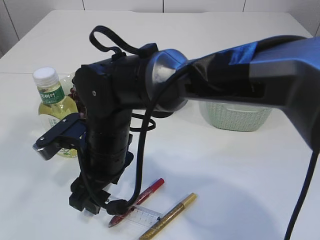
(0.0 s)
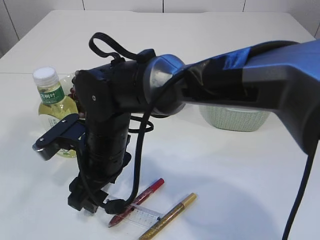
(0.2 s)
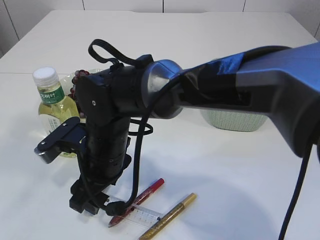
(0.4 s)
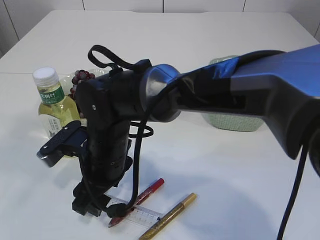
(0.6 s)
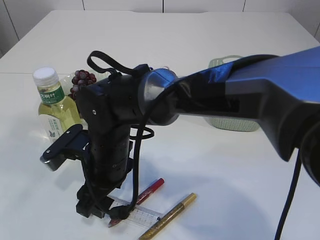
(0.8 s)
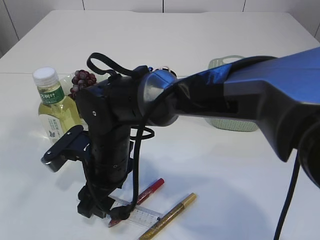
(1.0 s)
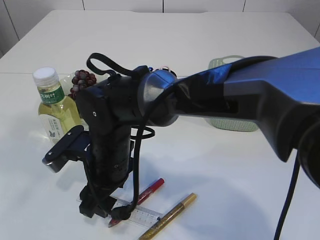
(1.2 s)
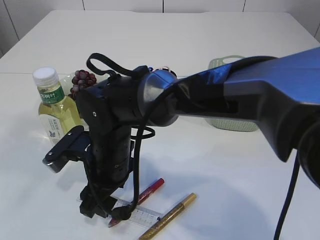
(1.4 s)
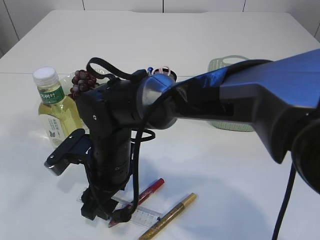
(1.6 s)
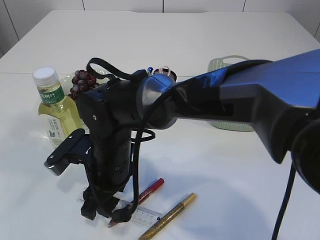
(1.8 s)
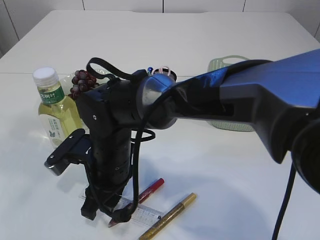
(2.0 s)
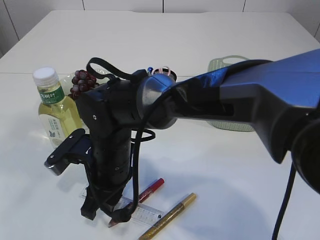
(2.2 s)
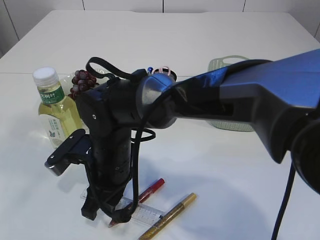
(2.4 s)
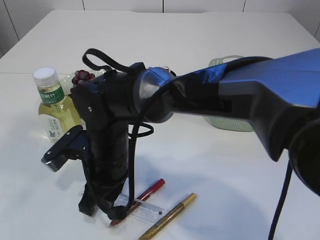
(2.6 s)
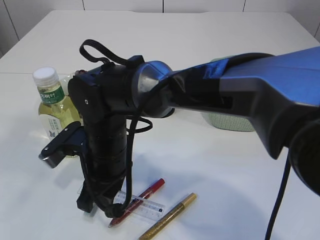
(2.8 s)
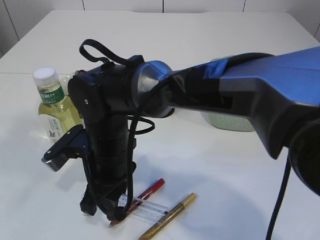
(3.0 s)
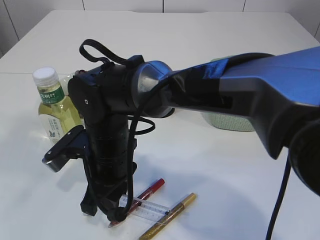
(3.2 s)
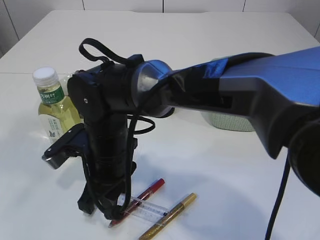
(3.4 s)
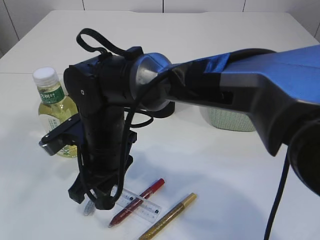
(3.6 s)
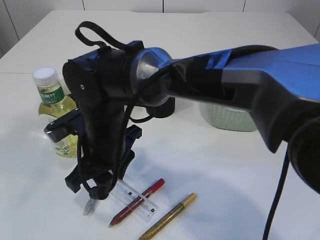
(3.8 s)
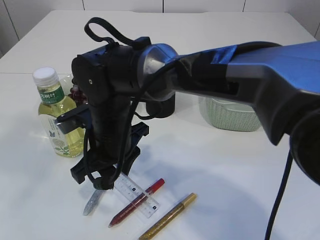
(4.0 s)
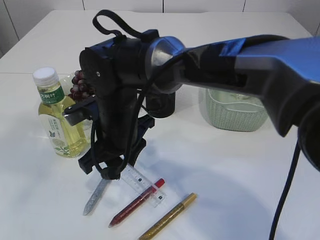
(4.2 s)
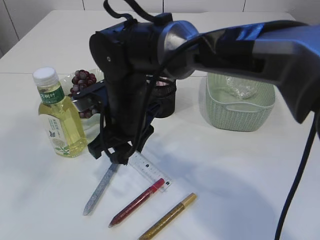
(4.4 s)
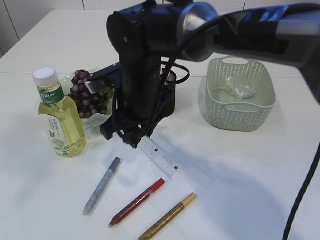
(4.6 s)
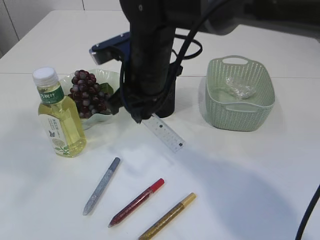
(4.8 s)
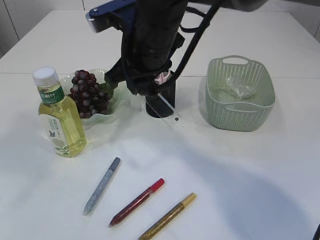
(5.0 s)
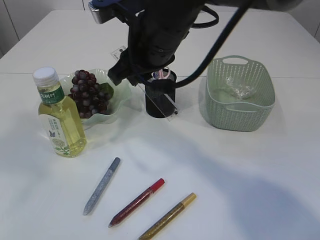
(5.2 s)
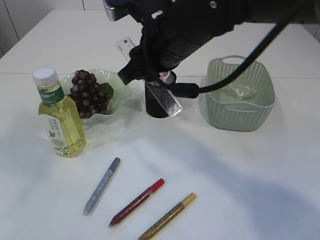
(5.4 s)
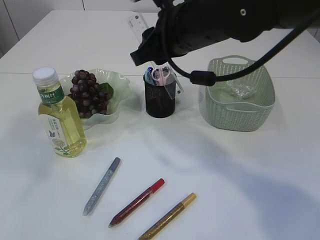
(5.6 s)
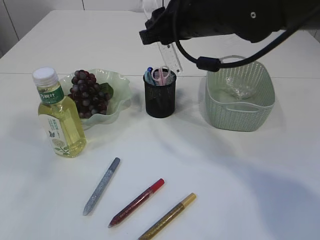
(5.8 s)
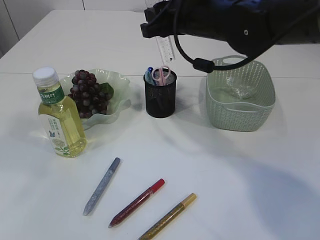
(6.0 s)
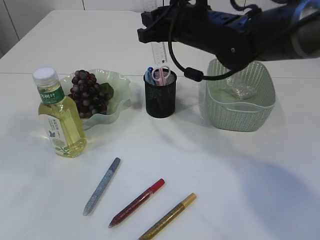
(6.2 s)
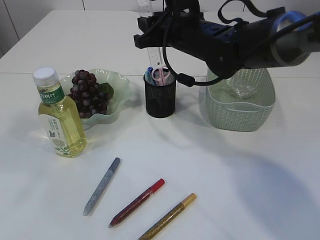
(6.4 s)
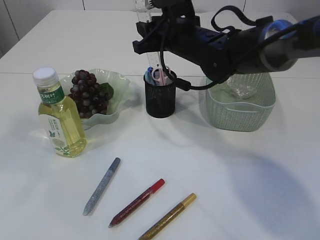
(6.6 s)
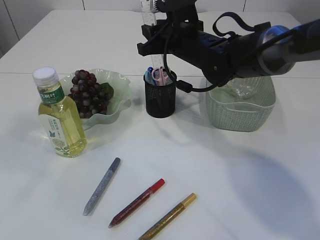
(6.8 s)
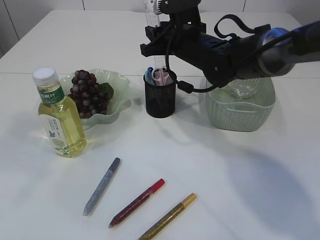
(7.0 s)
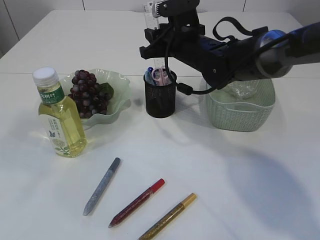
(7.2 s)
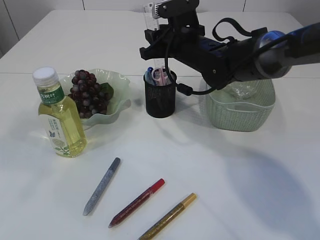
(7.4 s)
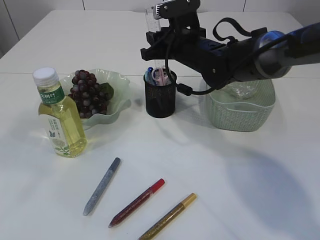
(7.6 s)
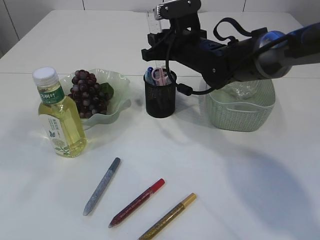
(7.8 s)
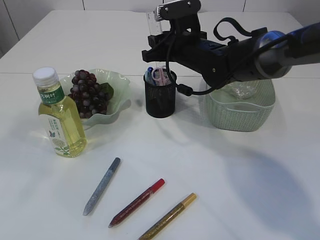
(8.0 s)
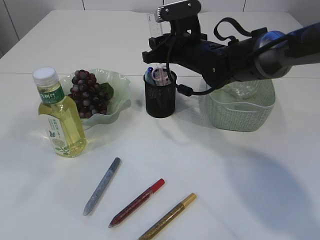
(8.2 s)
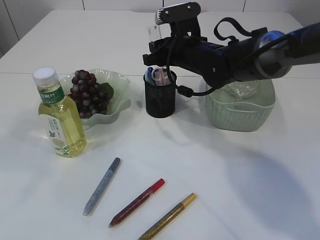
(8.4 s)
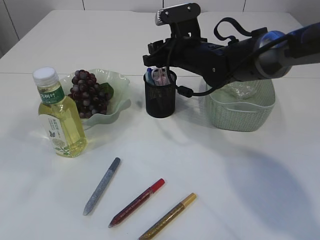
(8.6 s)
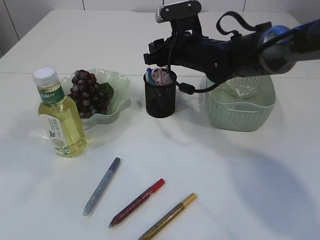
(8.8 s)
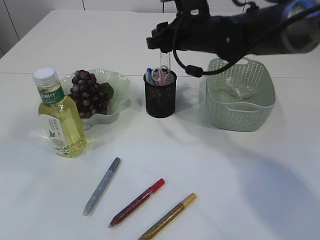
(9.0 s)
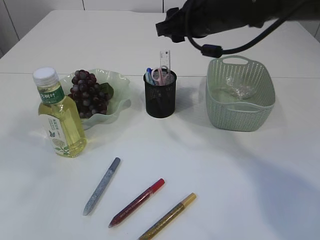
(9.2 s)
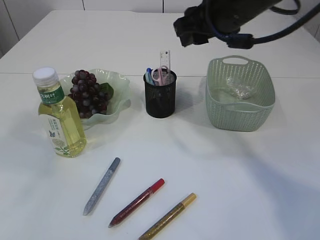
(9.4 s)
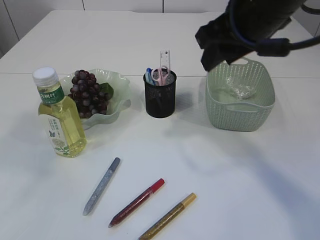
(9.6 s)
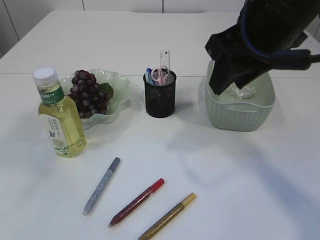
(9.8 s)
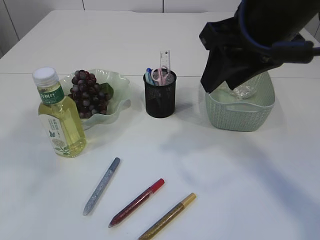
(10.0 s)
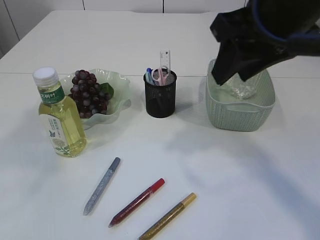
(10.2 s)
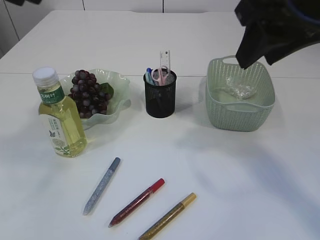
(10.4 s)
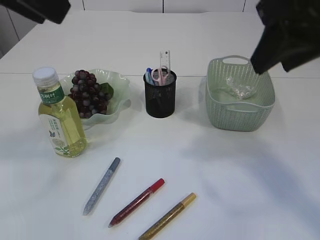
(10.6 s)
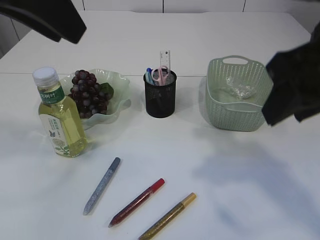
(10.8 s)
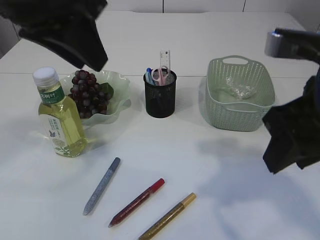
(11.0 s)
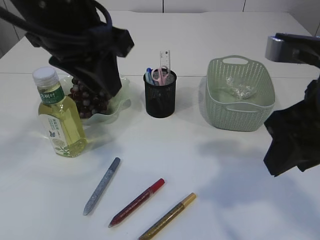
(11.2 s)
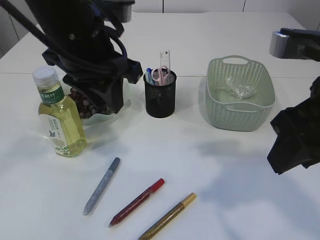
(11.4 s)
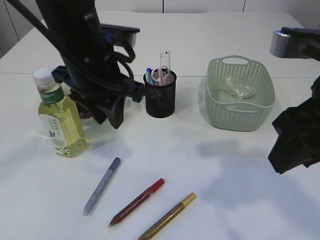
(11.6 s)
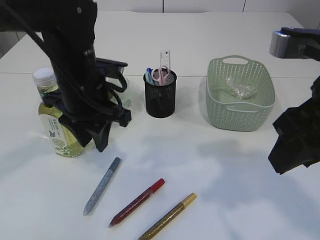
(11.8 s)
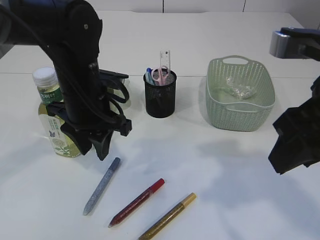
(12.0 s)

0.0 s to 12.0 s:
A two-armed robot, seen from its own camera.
Step, 0.0 to 4.6 s: pick up the ruler.
Step, 4.8 to 9.0 s: Place the ruler into the pen holder.
1.6 to 3.0 s: The right gripper closes its fingers.
3.0 to 4.4 s: The right gripper ends up approximately 5 cm from where it was.
4.4 to 6.0 s: The right gripper heads to the right, upward and forward, covering roughly 15 cm.
6.0 to 7.6 s: The right gripper shifts about 10 cm downward and forward.
7.6 to 9.0 s: The grippers stay close to where they were, moving slightly.
9.0 to 10.4 s: The right gripper moves backward, upward and to the right, approximately 25 cm.
10.4 to 12.0 s: The right gripper travels downward and backward by some 10 cm. The left gripper heads downward and forward, covering roughly 30 cm.

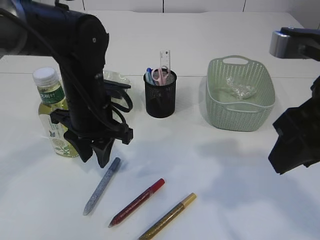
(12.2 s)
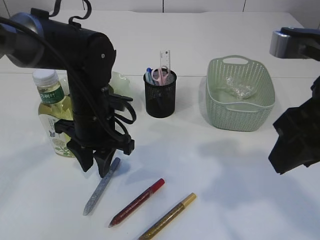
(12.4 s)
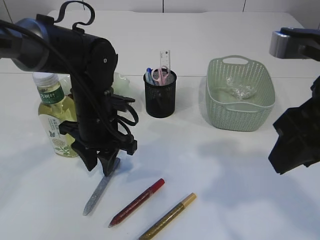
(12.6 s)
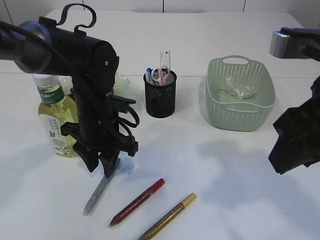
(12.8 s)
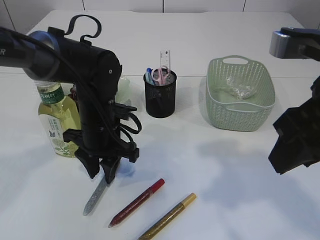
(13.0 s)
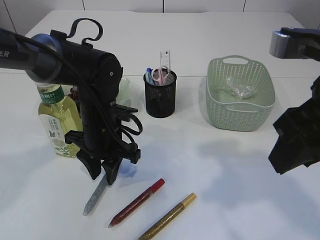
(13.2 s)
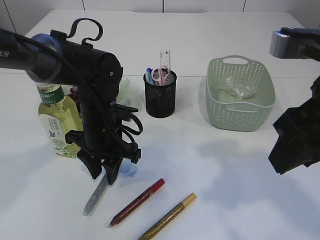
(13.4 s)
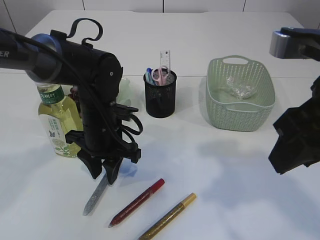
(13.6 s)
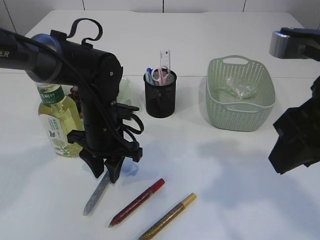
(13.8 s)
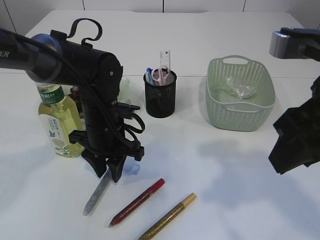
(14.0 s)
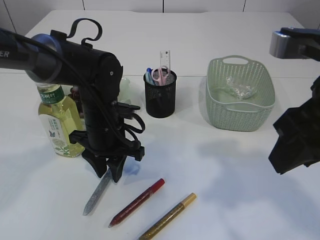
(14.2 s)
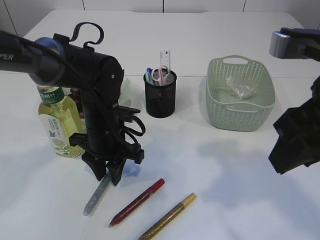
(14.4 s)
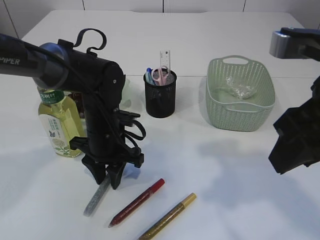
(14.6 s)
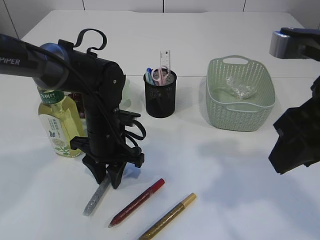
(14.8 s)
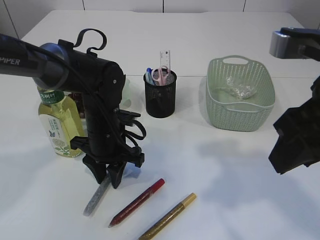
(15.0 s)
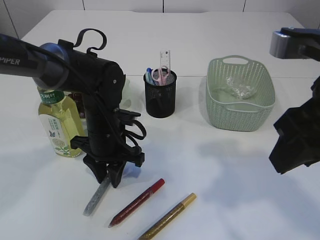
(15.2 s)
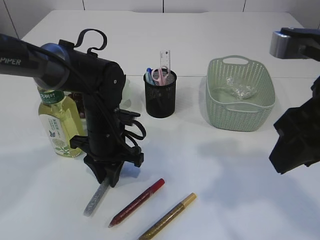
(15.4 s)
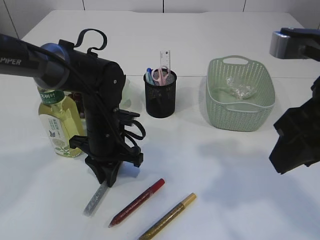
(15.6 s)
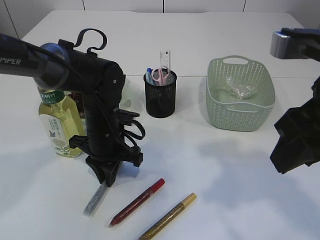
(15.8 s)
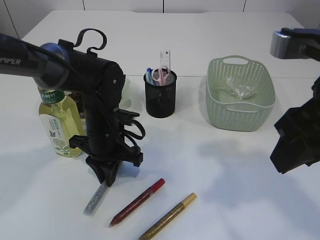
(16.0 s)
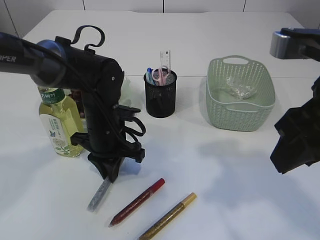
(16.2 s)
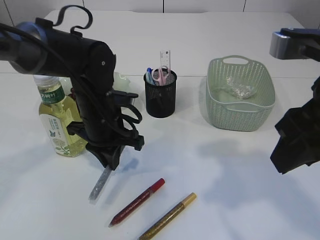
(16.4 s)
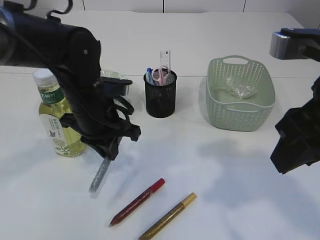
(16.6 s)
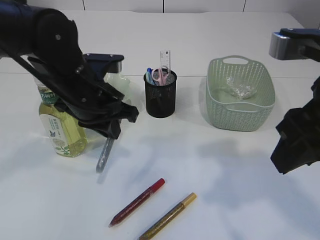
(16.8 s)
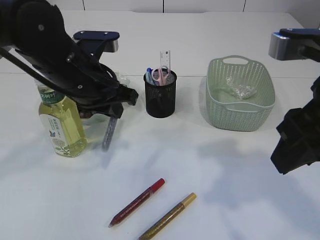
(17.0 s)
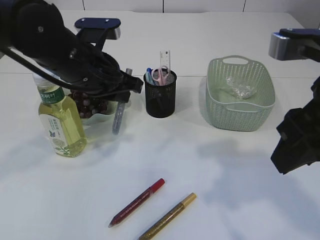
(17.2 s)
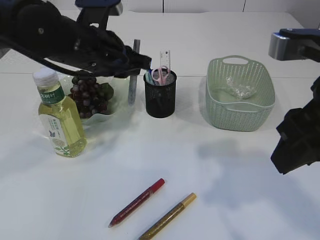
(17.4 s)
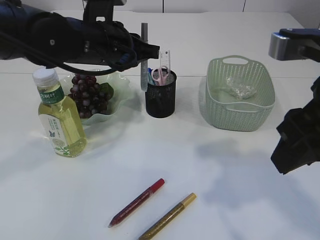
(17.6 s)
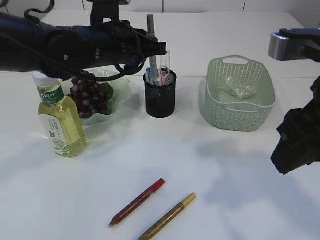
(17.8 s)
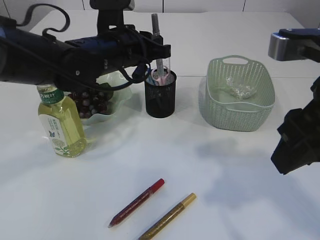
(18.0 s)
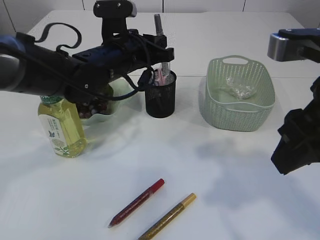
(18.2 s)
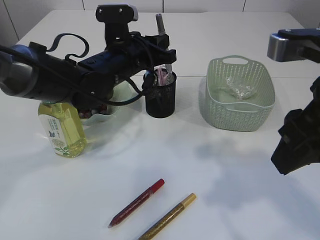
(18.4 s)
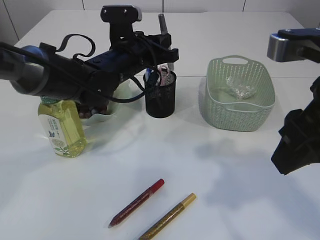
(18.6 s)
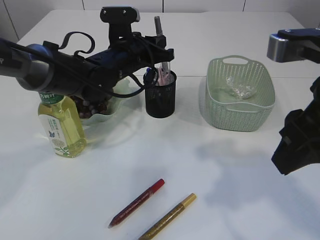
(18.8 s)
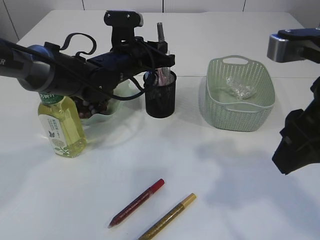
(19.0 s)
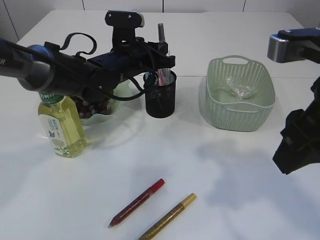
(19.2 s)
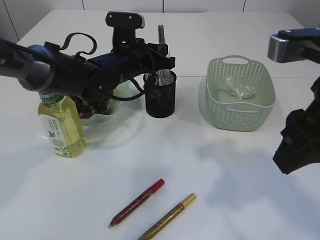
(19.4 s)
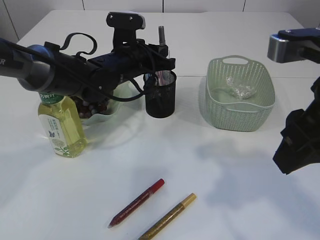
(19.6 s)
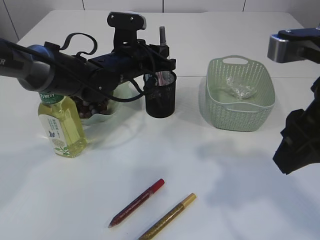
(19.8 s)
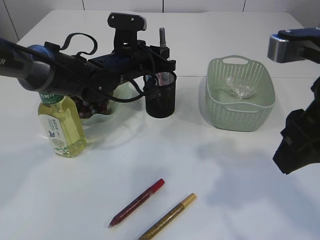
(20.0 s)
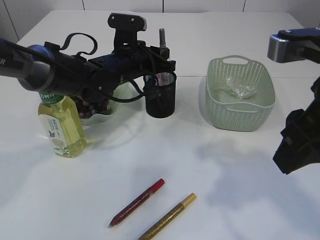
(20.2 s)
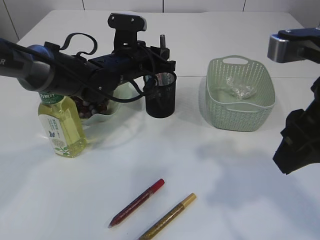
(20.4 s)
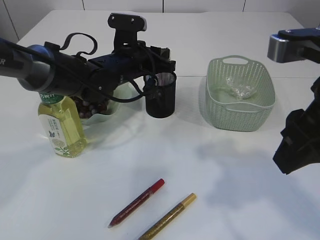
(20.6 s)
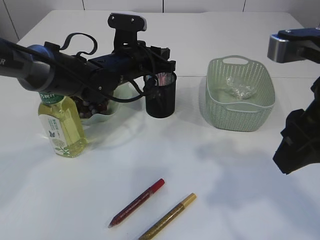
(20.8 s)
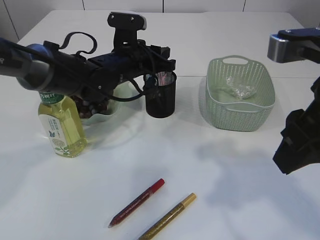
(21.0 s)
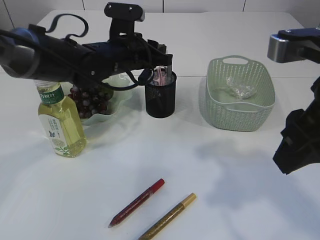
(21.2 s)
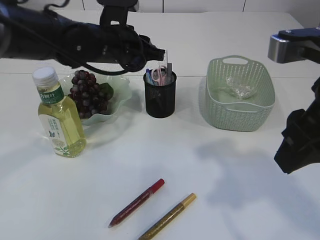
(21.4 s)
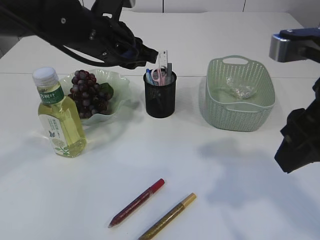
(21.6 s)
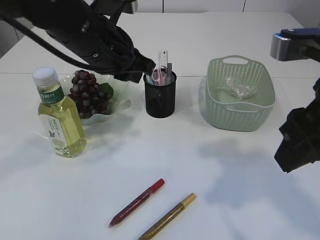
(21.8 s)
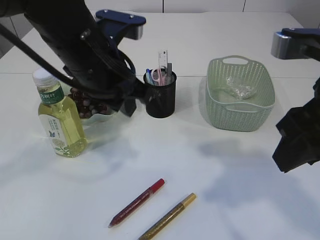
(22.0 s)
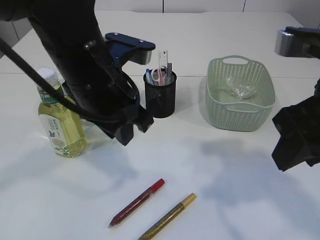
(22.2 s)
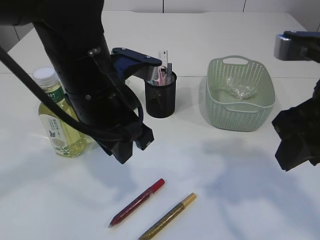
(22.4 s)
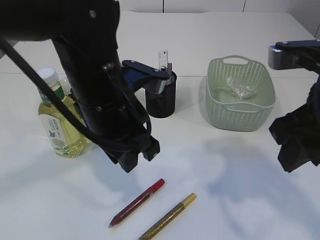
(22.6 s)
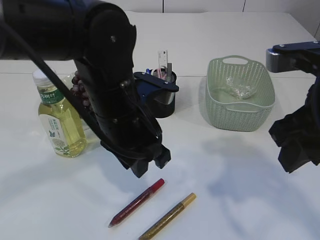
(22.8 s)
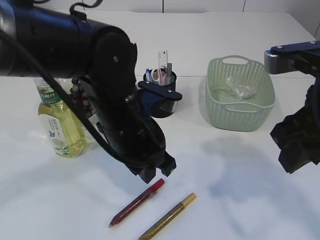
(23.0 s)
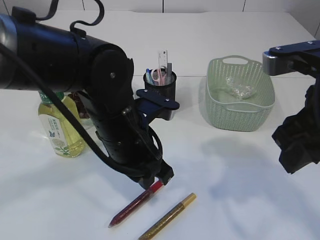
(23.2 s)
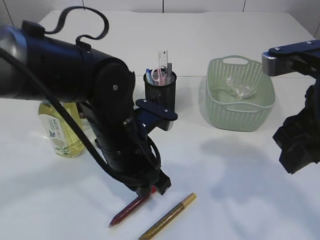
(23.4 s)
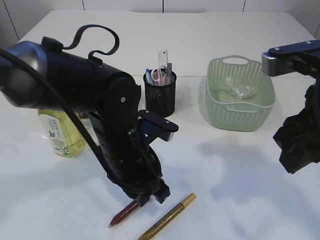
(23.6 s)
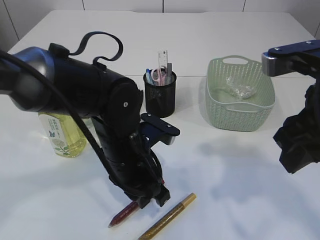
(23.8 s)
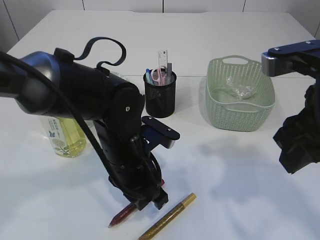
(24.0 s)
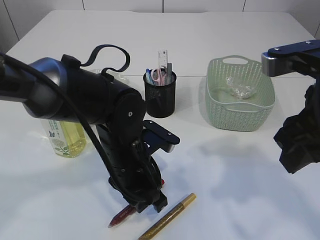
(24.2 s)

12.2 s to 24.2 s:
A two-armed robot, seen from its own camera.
Step, 12.2 to 16.8 s: pick up the silver glue.
Step, 17.0 to 21.6 s: place the silver glue into the pen holder.
12.2 to 13.8 s: The left gripper goes roughly 5 cm downward.
13.8 to 15.2 s: The grippers move only a little.
15.2 to 16.6 s: The left gripper moves upward, roughly 5 cm, and closes its fingers.
16.6 to 18.2 s: The left gripper shifts approximately 5 cm forward.
18.2 to 21.2 s: The grippers stay close to where they were, moving slightly.
21.2 to 22.6 s: The left gripper shifts roughly 15 cm backward.
22.6 to 24.2 s: The left gripper heads downward, covering some 10 cm.
